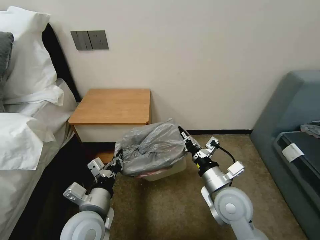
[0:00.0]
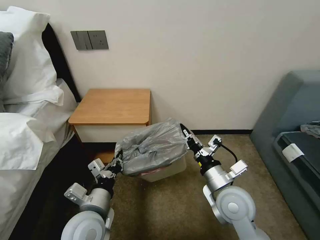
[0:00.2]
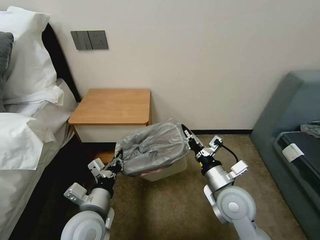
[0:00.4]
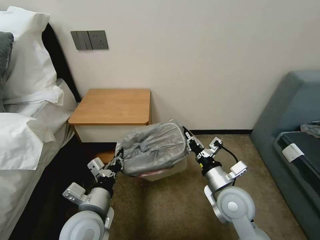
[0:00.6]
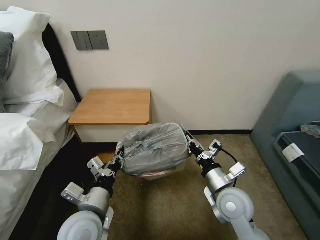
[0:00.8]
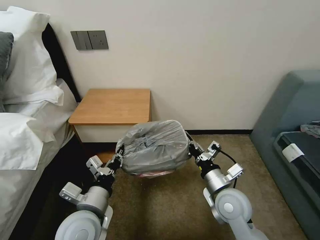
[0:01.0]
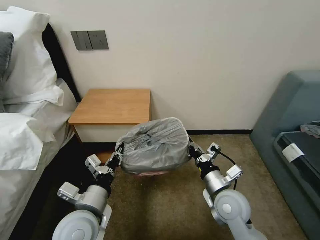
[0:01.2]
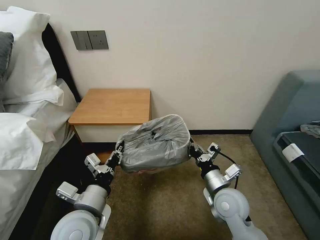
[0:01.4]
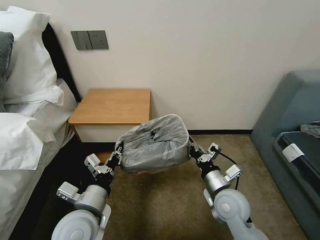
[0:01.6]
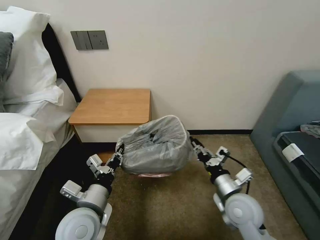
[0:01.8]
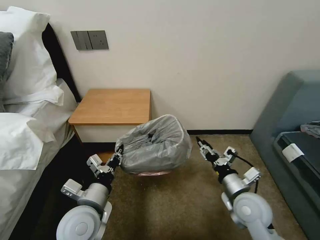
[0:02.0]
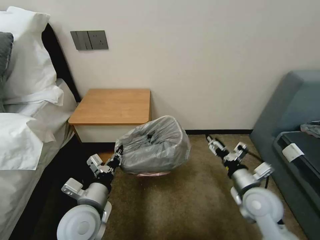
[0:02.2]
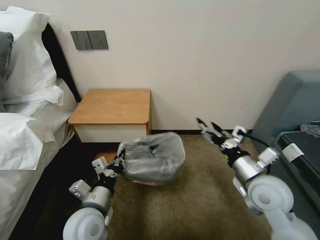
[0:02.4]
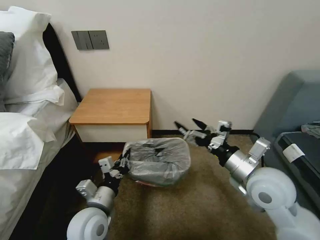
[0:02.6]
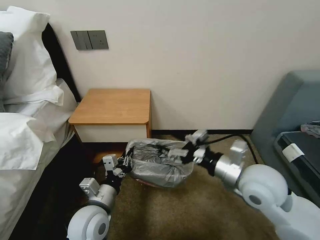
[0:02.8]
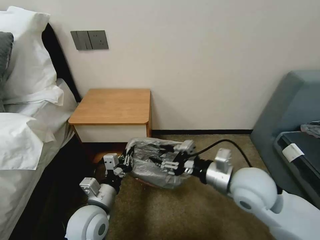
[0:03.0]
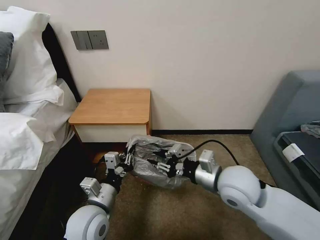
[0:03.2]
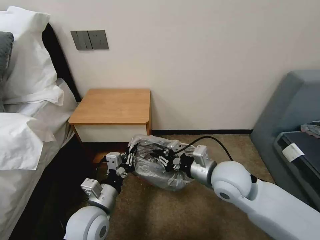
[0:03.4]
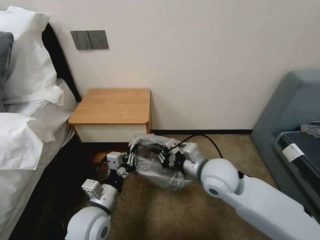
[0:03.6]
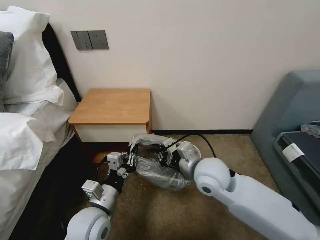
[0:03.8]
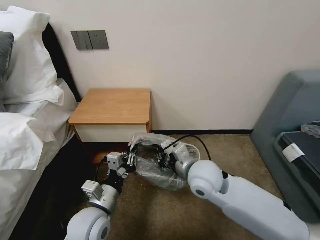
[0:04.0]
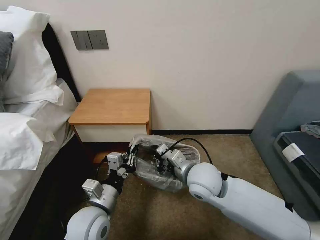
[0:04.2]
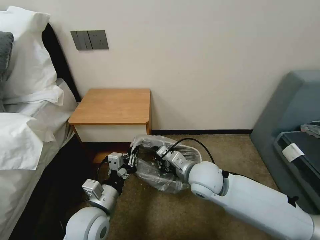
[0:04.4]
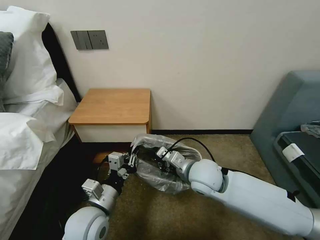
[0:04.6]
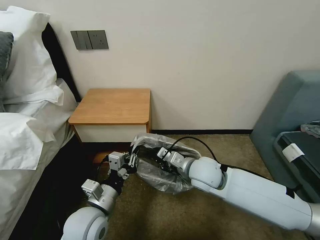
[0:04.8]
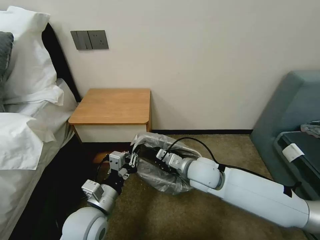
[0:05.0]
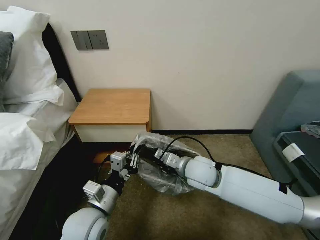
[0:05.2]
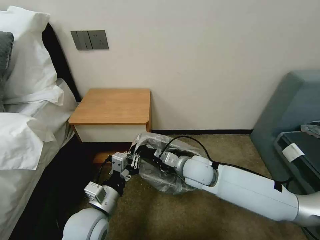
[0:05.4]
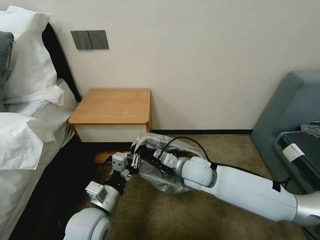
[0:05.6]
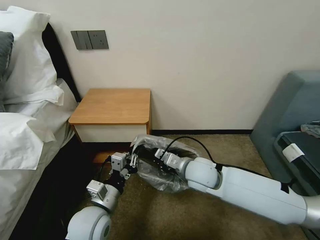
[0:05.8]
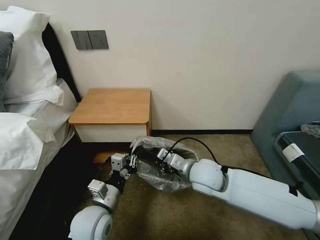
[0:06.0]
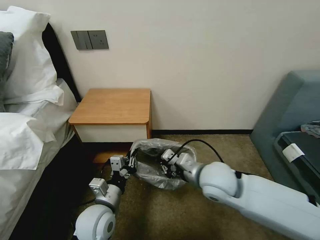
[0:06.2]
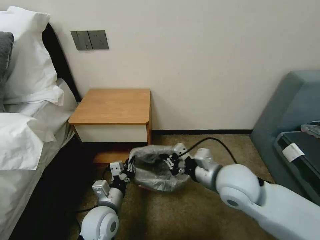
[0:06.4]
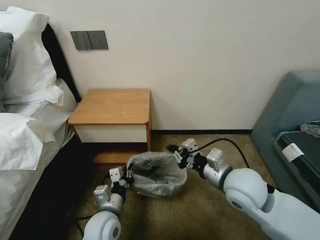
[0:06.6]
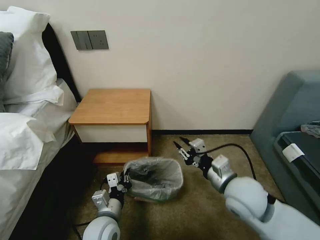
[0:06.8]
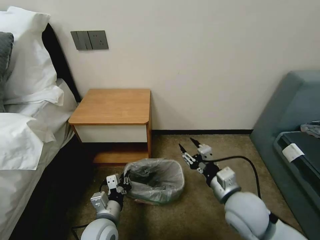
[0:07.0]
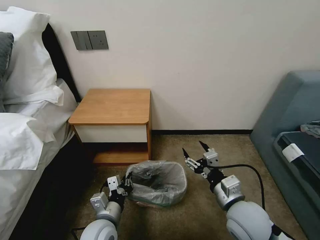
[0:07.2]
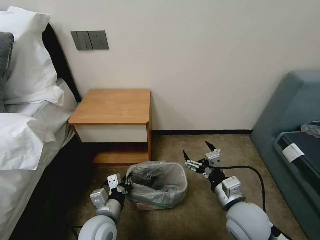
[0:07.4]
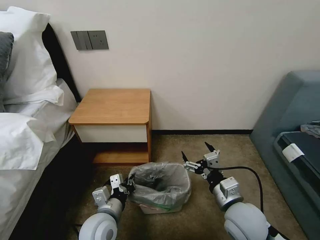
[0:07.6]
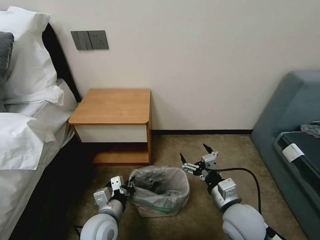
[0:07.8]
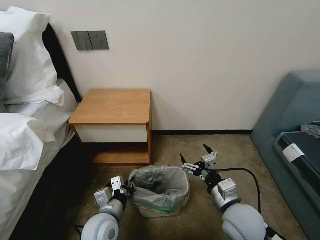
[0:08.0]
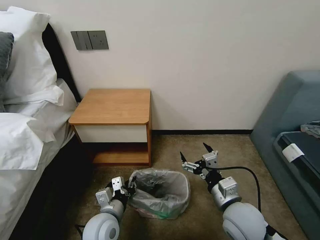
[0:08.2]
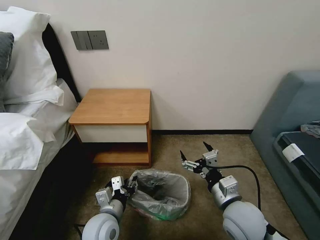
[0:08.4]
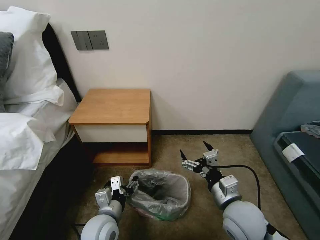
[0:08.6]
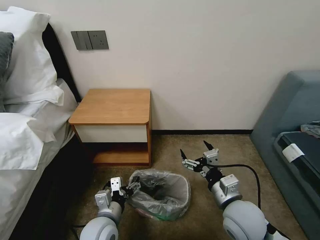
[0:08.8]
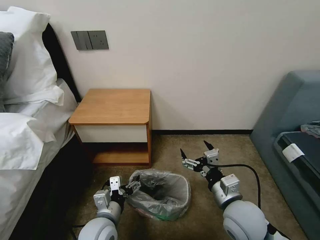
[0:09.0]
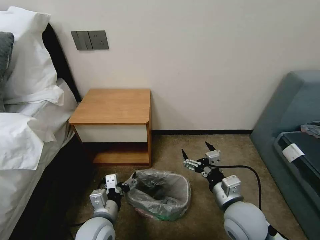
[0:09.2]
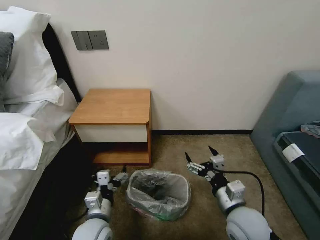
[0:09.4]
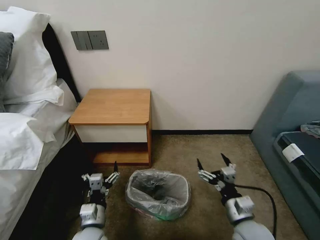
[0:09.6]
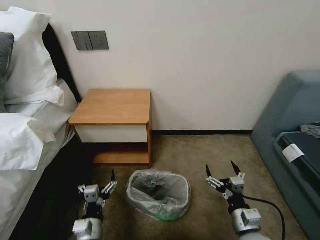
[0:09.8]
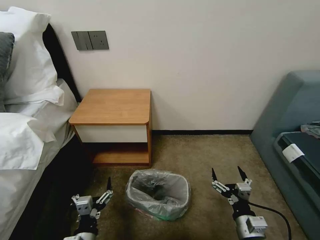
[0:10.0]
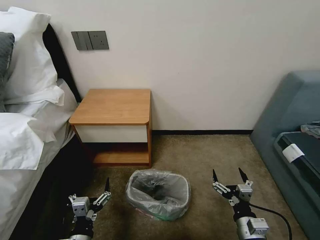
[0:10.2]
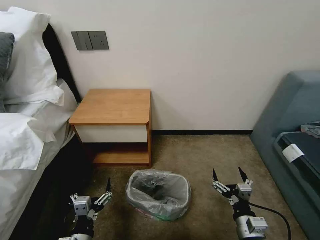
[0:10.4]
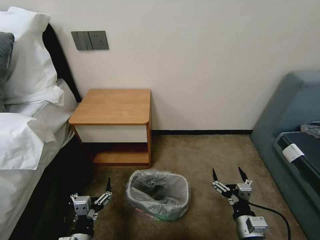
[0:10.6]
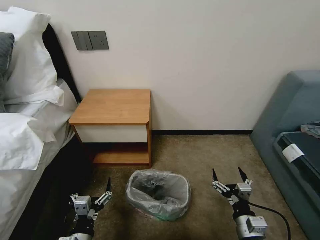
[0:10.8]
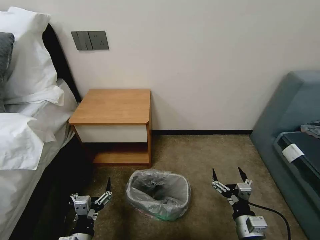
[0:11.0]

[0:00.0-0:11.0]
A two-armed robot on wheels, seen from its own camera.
Task of the whole recording: Pick up the garbage bag from the table and place it over the trash can.
0:00.0 to 0:01.6: There are only small adjustments of the grippers.
0:01.6 to 0:03.2: The right gripper travels upward by some 10 cm, and opens, then closes once more.
0:03.2 to 0:04.8: The right gripper heads to the left, forward and downward, covering about 10 cm, and closes up.
0:04.8 to 0:06.2: The grippers make only small movements.
0:06.2 to 0:07.8: The right gripper shifts approximately 10 cm backward, to the right and downward, and opens up.
0:07.8 to 0:09.4: The left gripper opens.
0:09.4 to 0:11.0: The right gripper goes about 10 cm downward and backward. Meanwhile the left gripper goes approximately 10 cm backward.

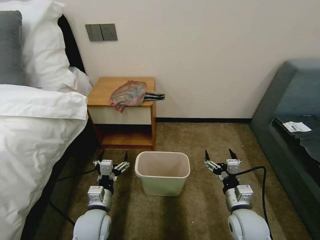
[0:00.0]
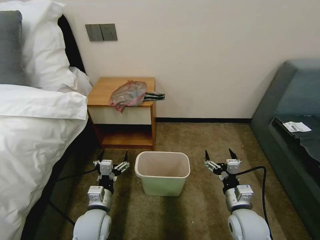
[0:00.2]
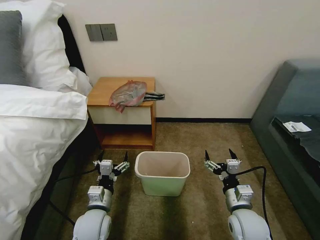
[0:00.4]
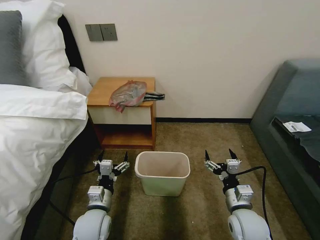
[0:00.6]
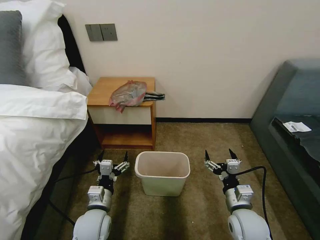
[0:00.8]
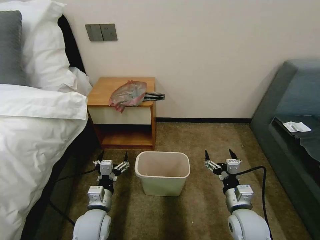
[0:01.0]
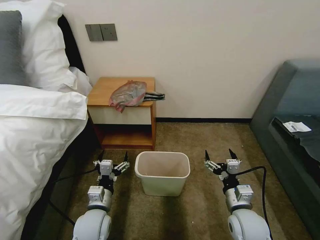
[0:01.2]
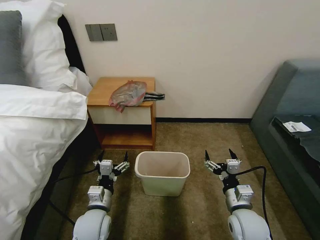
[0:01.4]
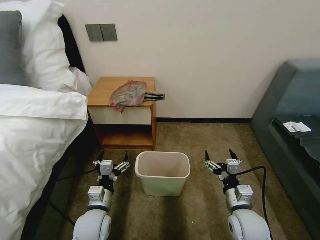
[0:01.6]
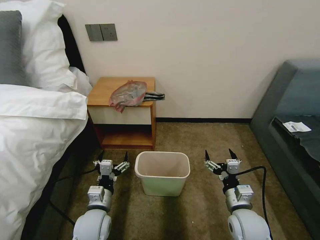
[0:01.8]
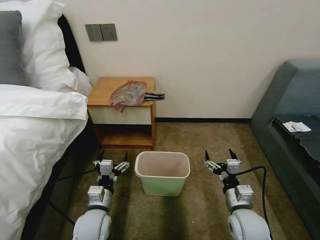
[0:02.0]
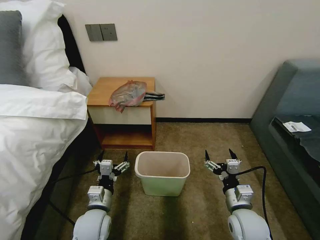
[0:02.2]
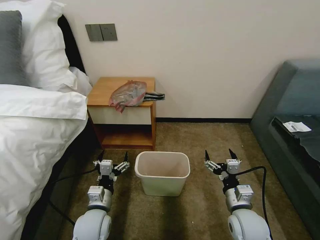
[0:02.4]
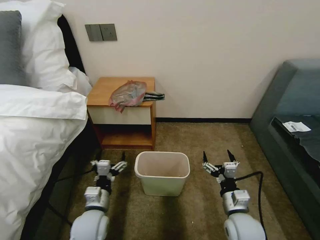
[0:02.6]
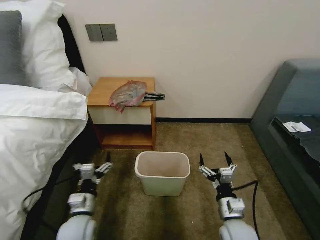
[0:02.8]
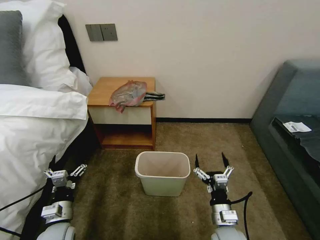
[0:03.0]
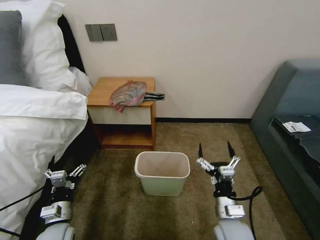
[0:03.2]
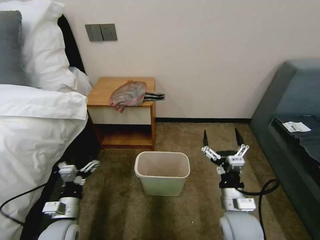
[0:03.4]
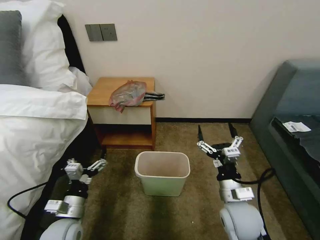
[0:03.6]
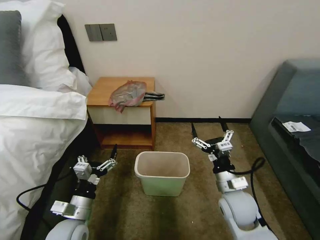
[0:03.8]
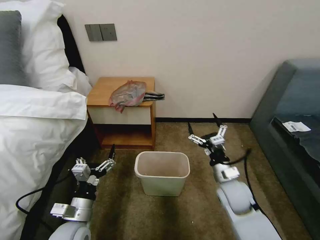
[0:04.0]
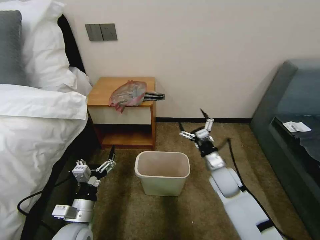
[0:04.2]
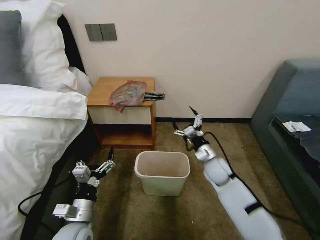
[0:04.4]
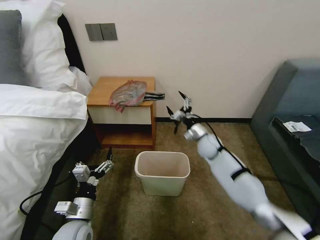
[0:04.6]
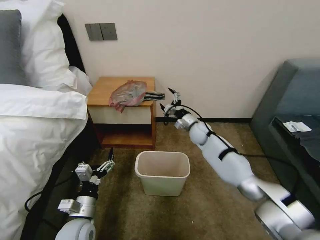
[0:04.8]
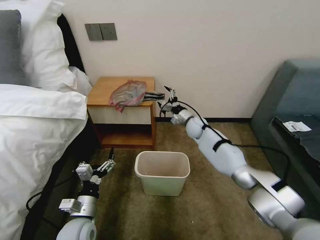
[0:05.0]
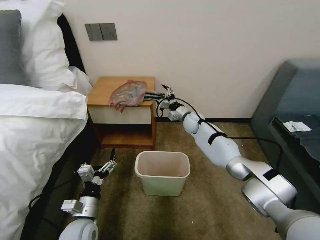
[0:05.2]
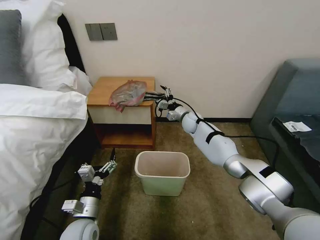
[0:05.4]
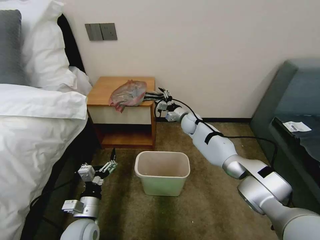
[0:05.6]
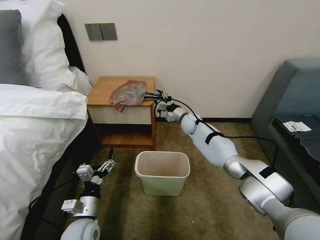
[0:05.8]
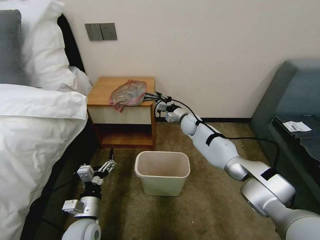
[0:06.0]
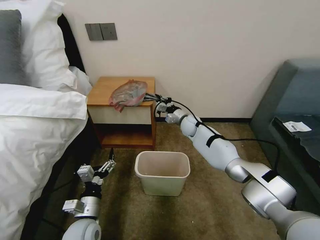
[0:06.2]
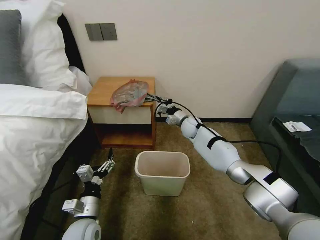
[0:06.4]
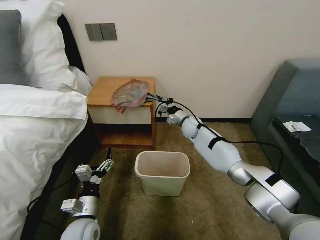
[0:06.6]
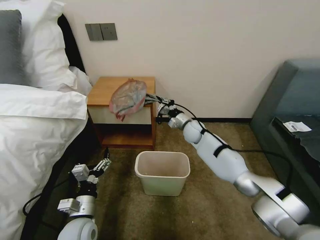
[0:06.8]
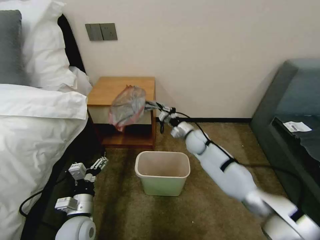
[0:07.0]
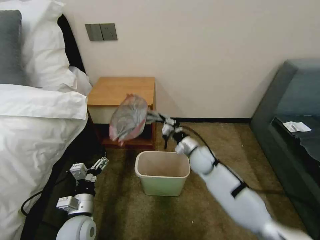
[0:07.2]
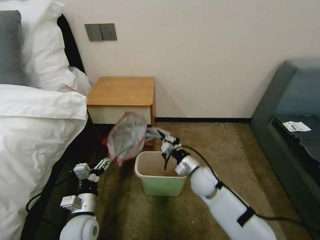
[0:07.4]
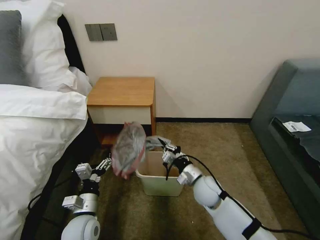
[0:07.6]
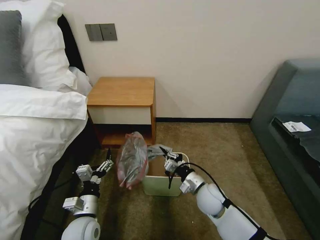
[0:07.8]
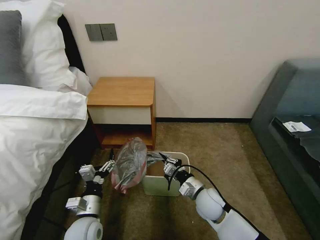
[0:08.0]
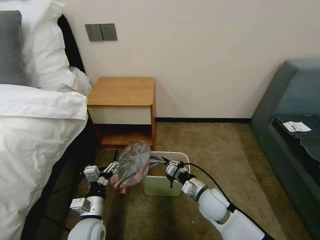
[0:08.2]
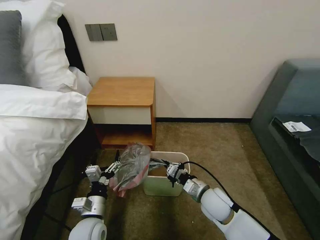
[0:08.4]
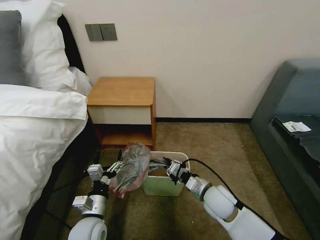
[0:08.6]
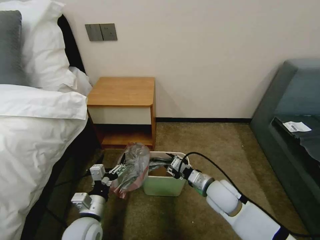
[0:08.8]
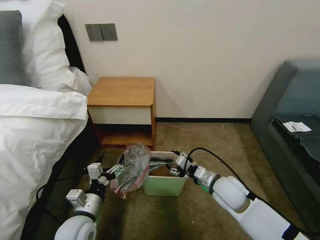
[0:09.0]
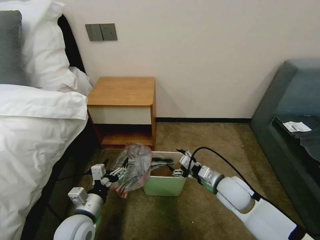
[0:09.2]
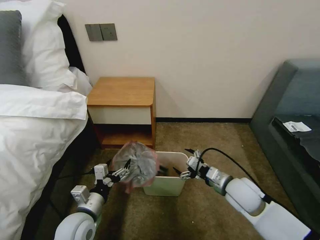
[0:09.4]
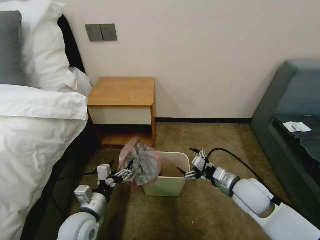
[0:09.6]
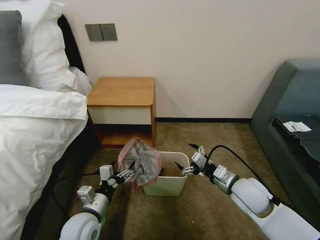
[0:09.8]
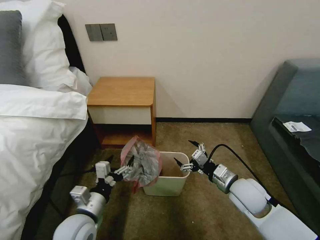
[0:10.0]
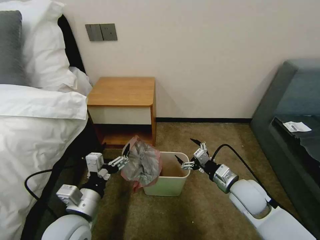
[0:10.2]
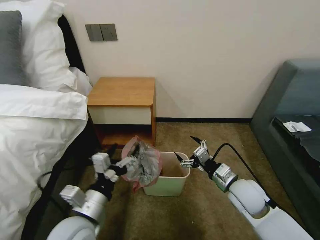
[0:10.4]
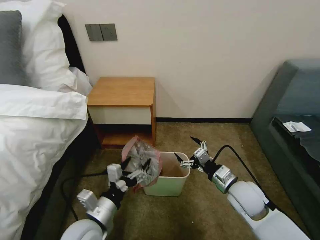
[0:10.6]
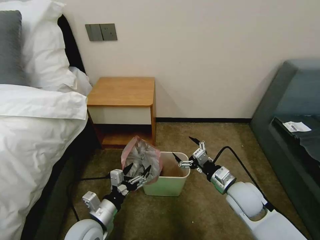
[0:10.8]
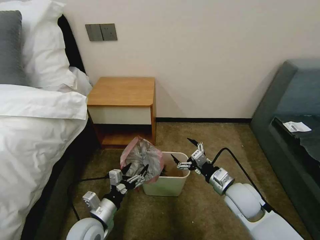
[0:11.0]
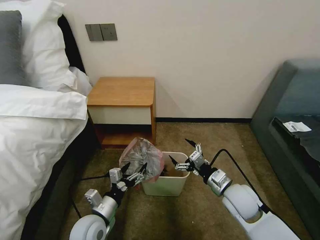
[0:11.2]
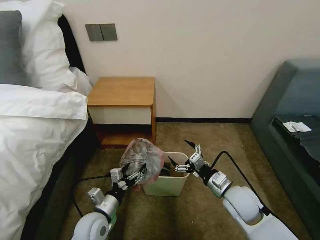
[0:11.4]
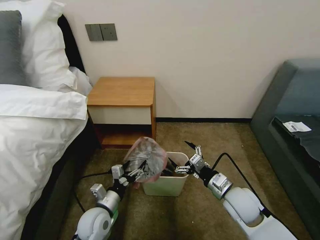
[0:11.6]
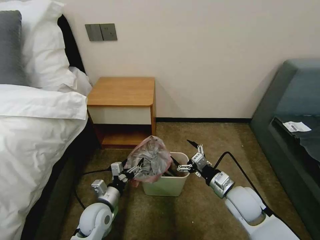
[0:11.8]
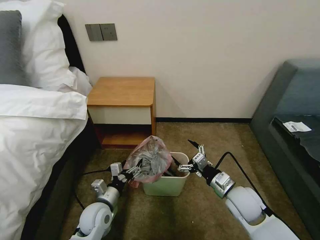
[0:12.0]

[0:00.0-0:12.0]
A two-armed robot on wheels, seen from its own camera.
Task of the whole recording: Pick up the garbage bag from the table and place it over the trash can.
0:01.6 to 0:03.0: The right gripper ends up roughly 10 cm from where it was; the left gripper travels to the left by approximately 10 cm.
0:03.0 to 0:04.4: The left gripper travels to the right by about 5 cm. Meanwhile the right gripper moves forward, some 25 cm.
0:04.4 to 0:06.0: The right gripper shifts roughly 20 cm forward, and closes.
0:06.0 to 0:07.6: The right gripper is displaced backward by some 30 cm.
0:07.6 to 0:09.0: The right gripper travels upward and to the right by approximately 5 cm, and opens.
0:09.0 to 0:10.4: The right gripper opens, while the left gripper heads upward, covering about 10 cm.
0:10.4 to 0:12.0: The left gripper moves downward and forward, some 15 cm.
